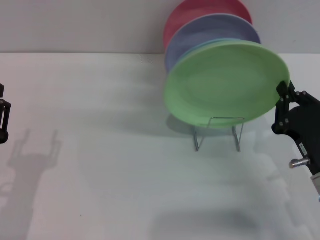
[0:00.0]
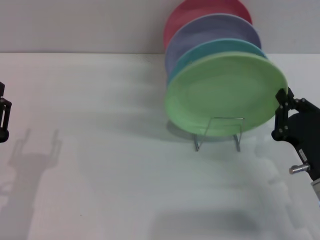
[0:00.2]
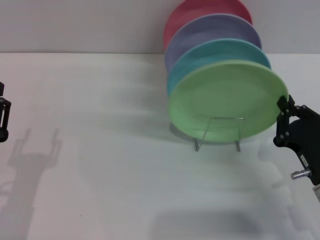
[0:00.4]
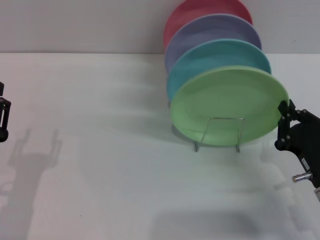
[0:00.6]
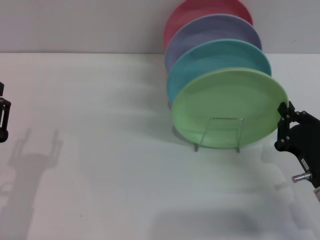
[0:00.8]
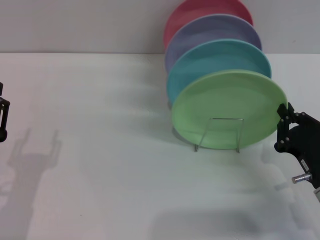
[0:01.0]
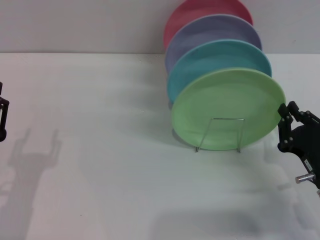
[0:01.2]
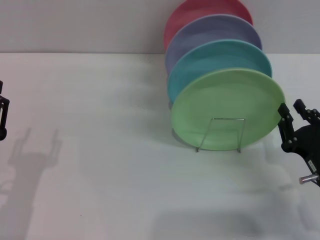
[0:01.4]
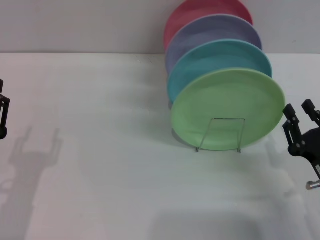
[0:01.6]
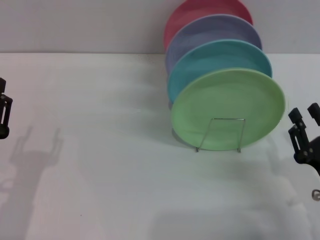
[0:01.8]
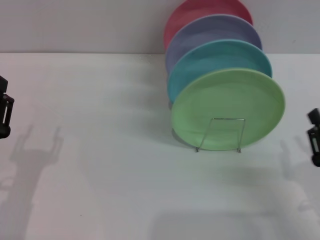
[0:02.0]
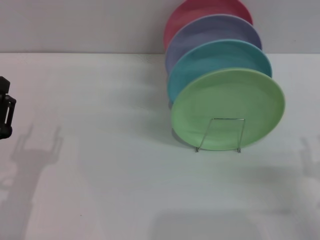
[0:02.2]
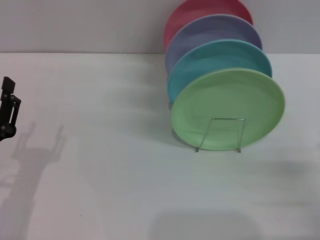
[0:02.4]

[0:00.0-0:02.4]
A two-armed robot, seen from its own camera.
Task of the whole recording: Grip the plate with one hand, pass it to the other, then set it on the shelf.
0:00.0 to 0:01.2: The grippers move only a little.
0:01.2 to 0:02.4: The right gripper moves to the right, about 5 cm, and opens its fingers.

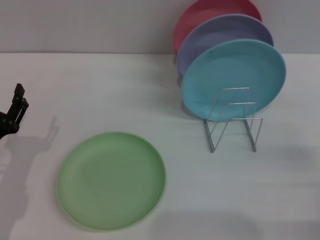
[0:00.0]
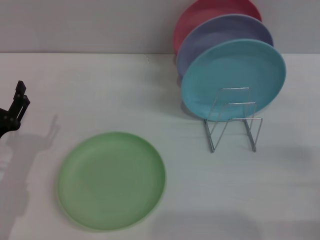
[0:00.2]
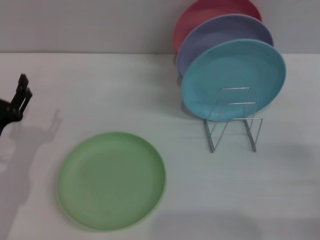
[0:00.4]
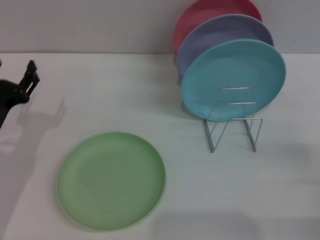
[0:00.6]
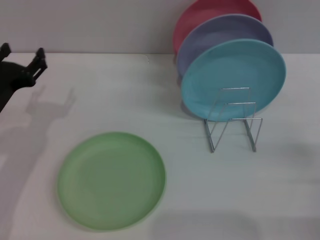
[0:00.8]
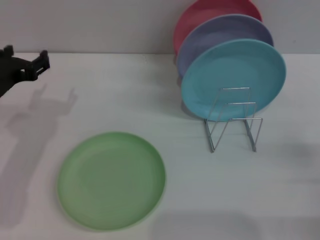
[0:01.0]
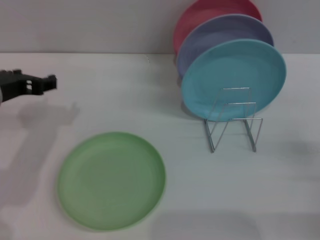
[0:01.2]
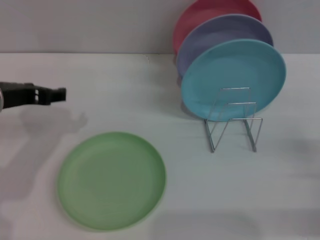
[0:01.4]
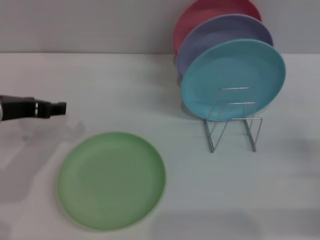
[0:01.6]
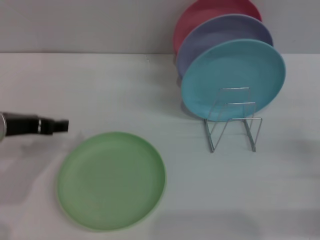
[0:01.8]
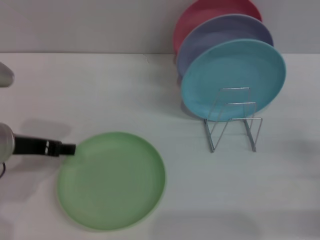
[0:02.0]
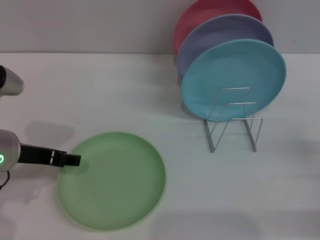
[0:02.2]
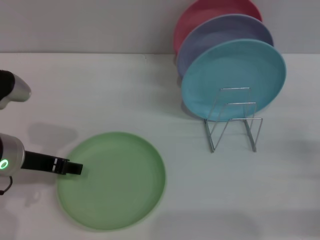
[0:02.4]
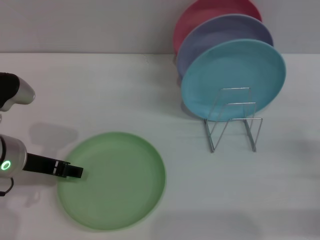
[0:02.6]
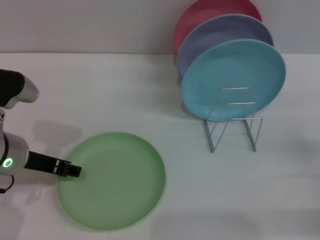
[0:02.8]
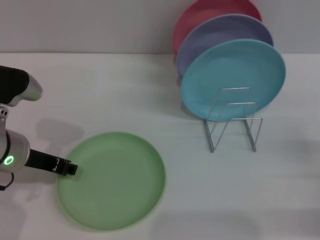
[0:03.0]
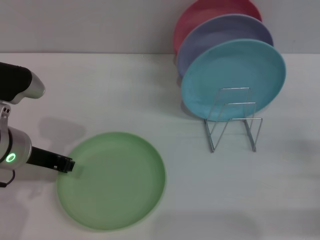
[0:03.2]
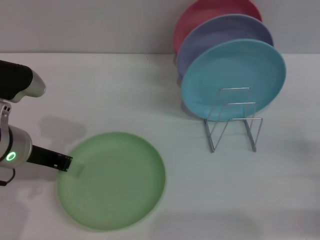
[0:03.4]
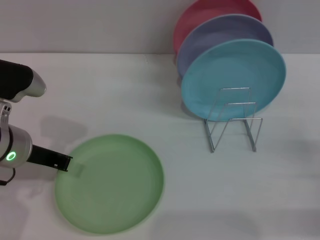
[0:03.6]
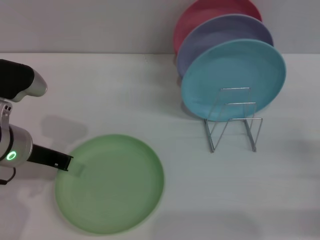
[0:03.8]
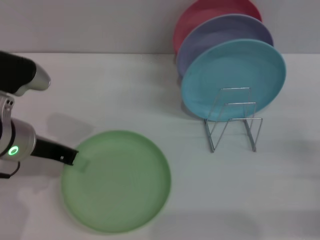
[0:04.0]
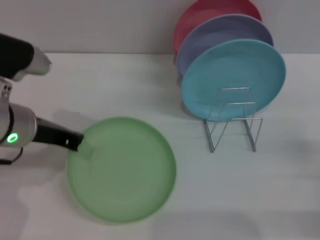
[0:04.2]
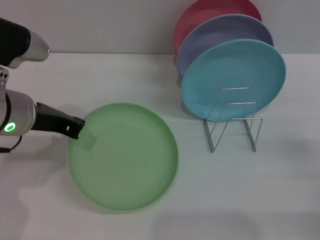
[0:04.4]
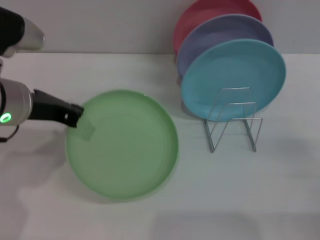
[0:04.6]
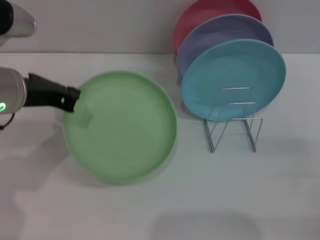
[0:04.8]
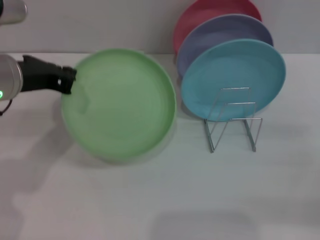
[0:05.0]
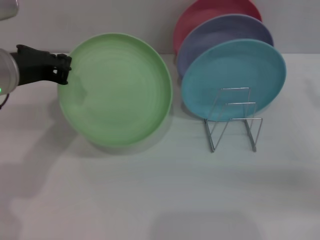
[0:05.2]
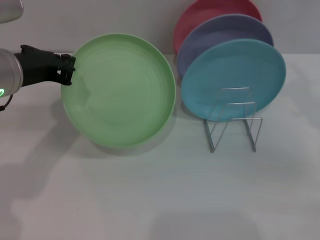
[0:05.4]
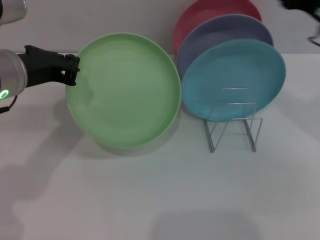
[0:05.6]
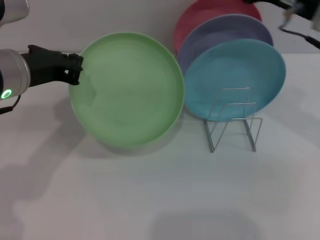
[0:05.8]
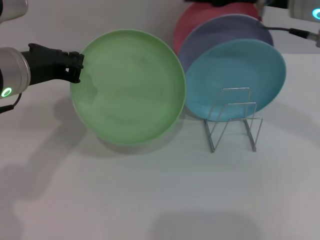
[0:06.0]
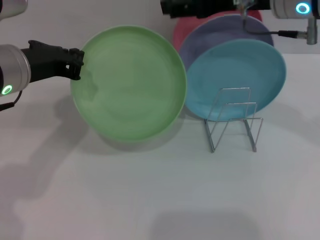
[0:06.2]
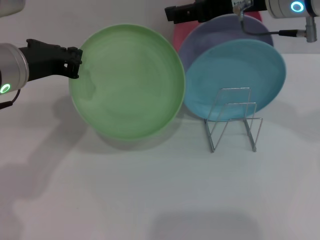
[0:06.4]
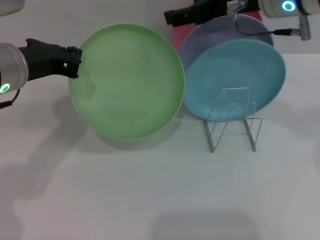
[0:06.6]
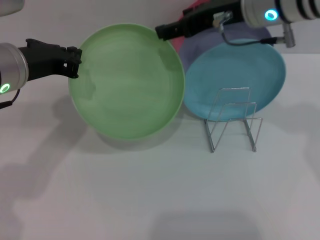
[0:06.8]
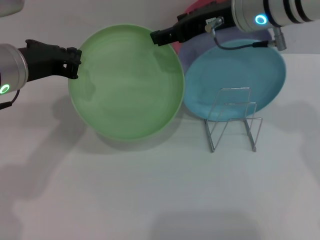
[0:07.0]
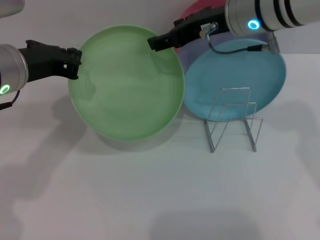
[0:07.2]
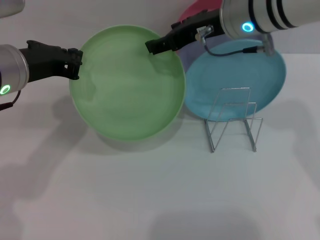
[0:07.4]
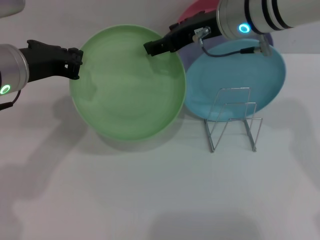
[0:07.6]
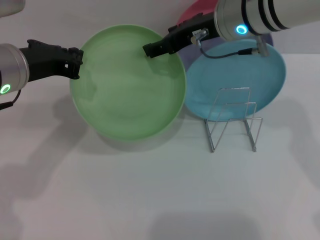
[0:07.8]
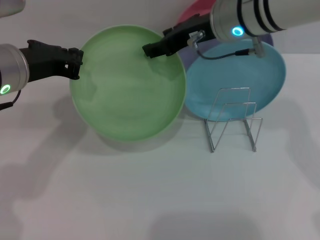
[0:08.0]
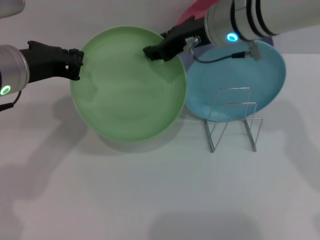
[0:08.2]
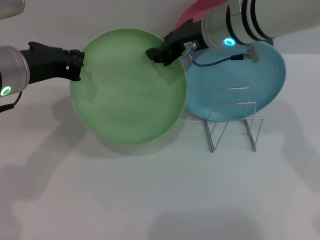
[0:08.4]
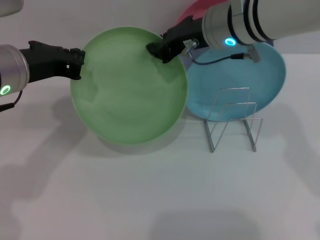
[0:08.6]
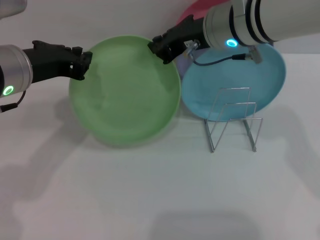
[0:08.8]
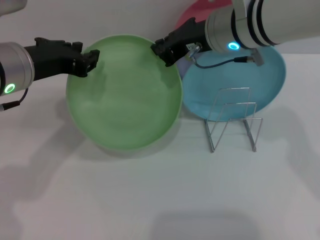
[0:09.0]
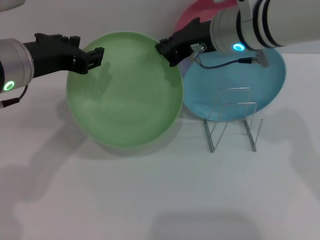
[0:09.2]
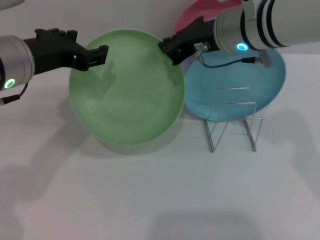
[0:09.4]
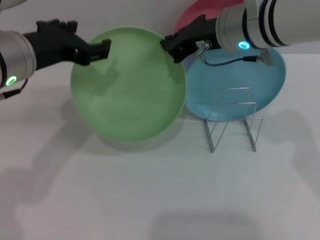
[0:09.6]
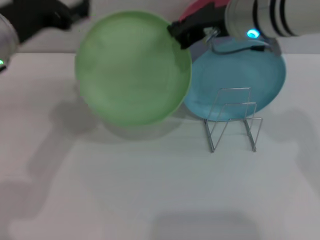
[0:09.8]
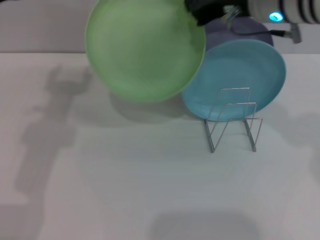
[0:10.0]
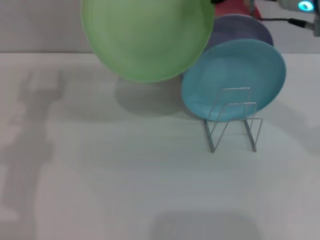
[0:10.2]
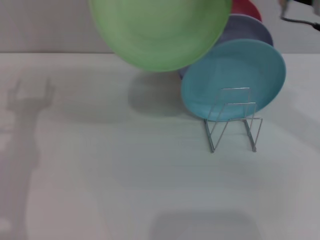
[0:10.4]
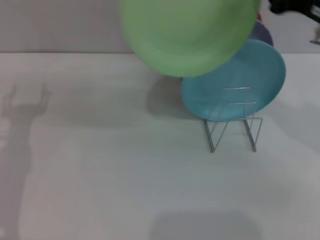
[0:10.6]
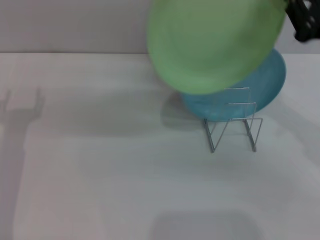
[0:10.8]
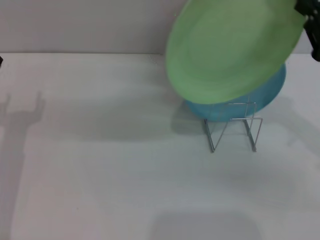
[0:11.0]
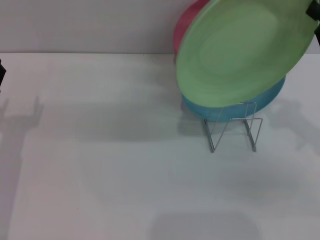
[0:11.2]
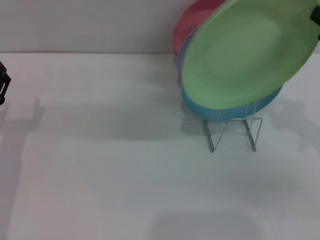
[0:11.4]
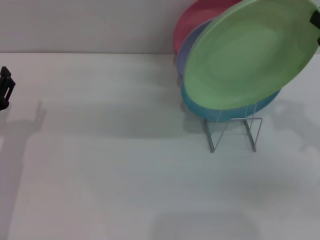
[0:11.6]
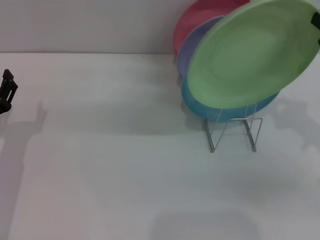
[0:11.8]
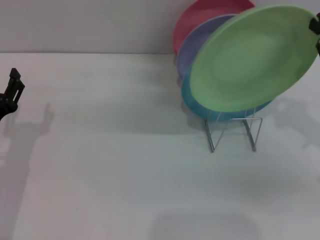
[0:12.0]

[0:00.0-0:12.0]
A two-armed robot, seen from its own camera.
Task of the whole recording: Grip the plate with one hand, pass it to the other, then set it on the shelf.
Step, 0:00.0 to 0:04.6: Pick up the plate with the left gripper.
Step, 0:04.8 to 0:09.8: Pass the plate from the left gripper to the right gripper.
0:00.0 to 0:01.6: The left gripper shifts about 15 cm upward and forward.
0:03.0 to 0:04.4: The left gripper is displaced upward by some 5 cm, and closes its fingers.
0:04.4 to 0:06.0: The right gripper shifts approximately 30 cm upward, to the left and forward.
0:06.0 to 0:07.6: The right gripper moves to the left, roughly 5 cm.
0:07.6 to 0:09.0: The right gripper closes.
0:09.0 to 0:10.4: The left gripper is displaced downward and to the left by some 10 cm, and opens. The right gripper is displaced to the right by some 10 cm.
0:10.4 to 0:12.0: The right gripper moves downward, to the right and backward, some 15 cm. The left gripper is displaced downward by about 10 cm.

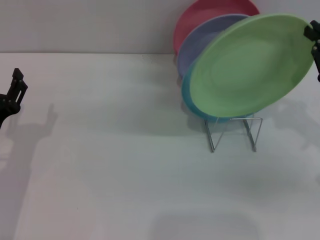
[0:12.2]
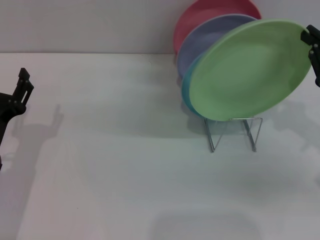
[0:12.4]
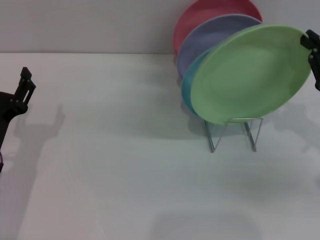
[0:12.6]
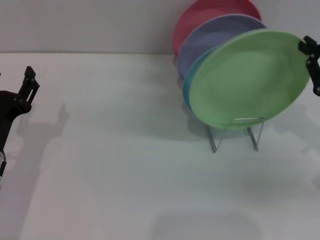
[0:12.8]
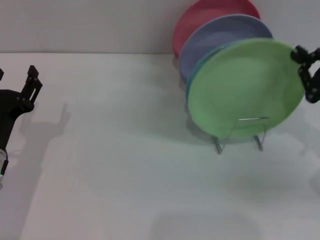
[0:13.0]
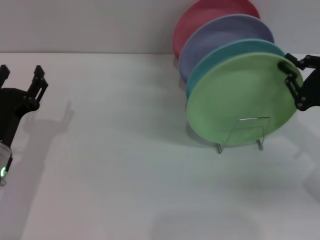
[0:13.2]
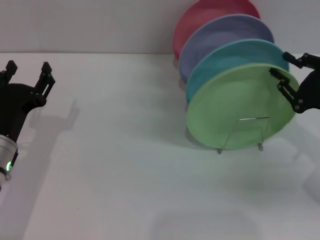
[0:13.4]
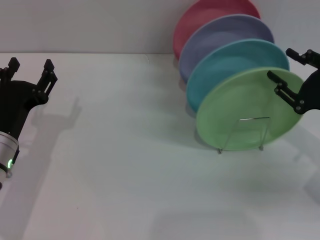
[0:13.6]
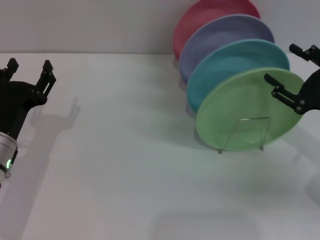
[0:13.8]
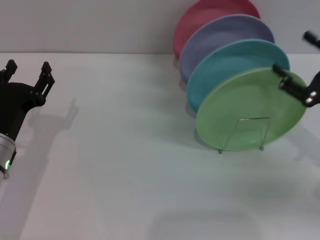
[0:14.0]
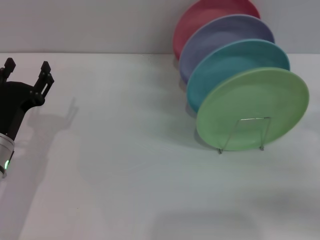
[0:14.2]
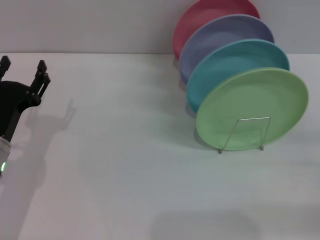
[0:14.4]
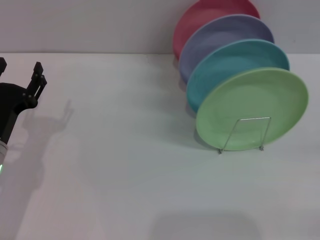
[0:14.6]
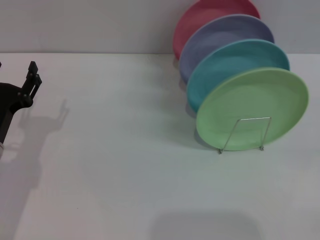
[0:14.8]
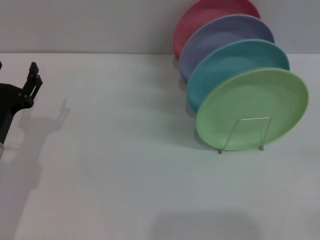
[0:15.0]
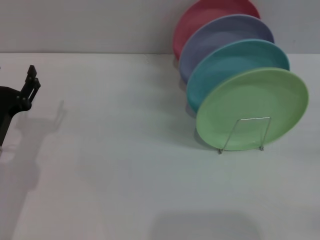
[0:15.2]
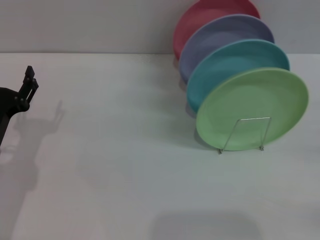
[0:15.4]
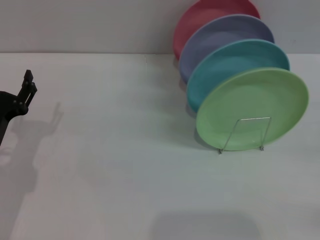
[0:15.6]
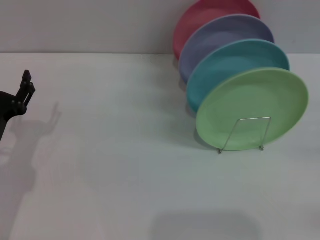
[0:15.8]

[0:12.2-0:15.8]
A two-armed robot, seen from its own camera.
Task of the whole recording: Grip the plate with one hand, pass it to the other, then set it on the shelf.
0:12.2 to 0:14.0: The right gripper opens.
0:14.0 to 0:15.8: The right gripper moves to the right, backward and downward, some 15 cm.
